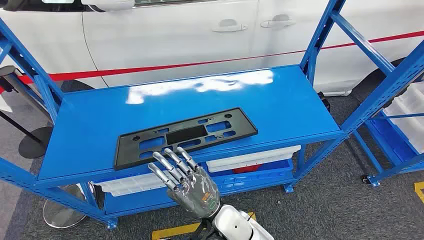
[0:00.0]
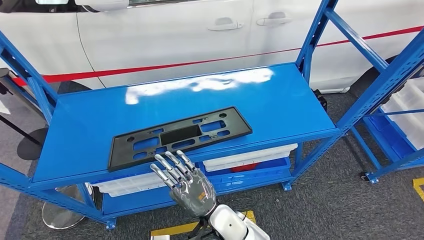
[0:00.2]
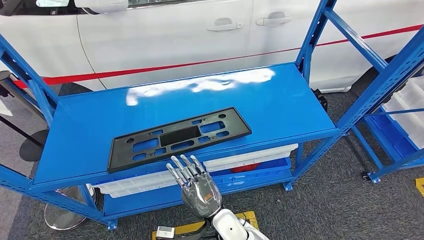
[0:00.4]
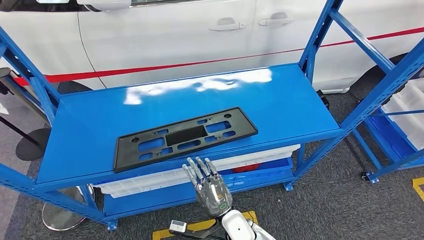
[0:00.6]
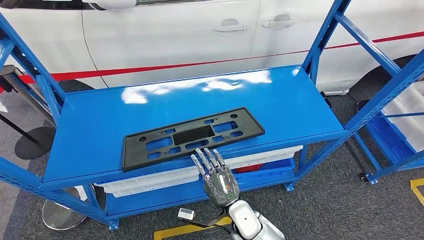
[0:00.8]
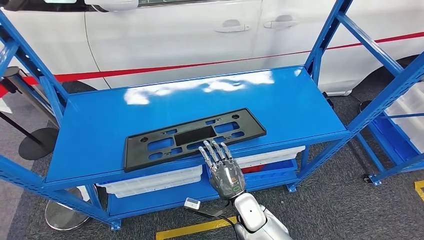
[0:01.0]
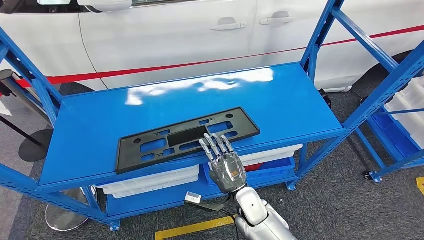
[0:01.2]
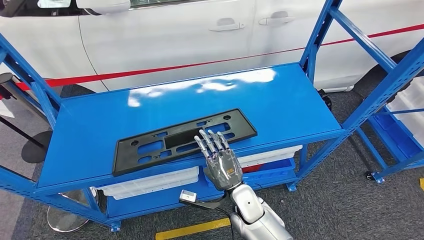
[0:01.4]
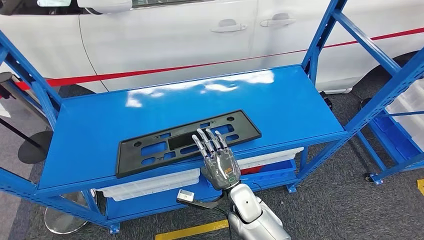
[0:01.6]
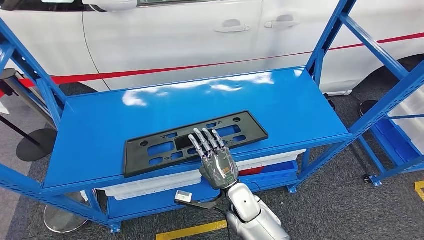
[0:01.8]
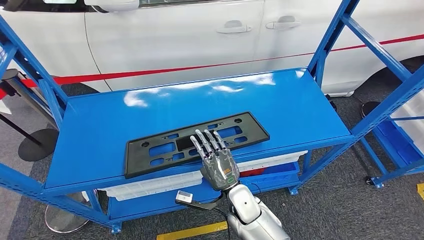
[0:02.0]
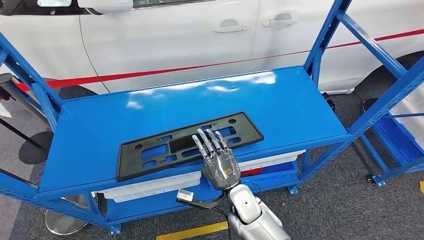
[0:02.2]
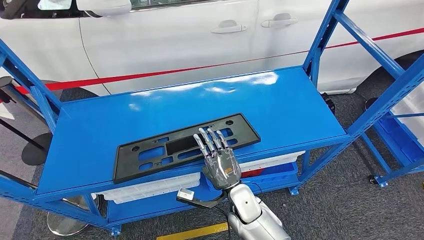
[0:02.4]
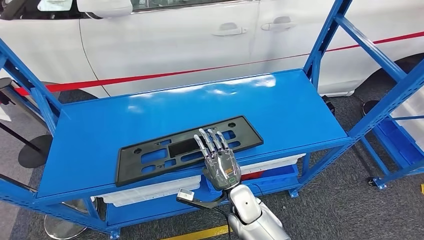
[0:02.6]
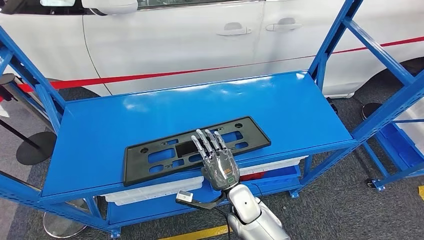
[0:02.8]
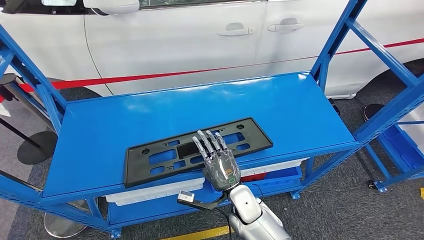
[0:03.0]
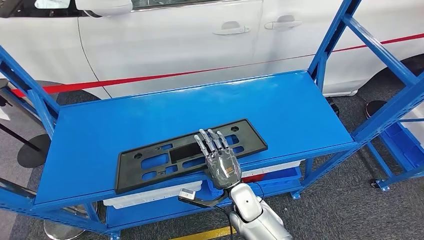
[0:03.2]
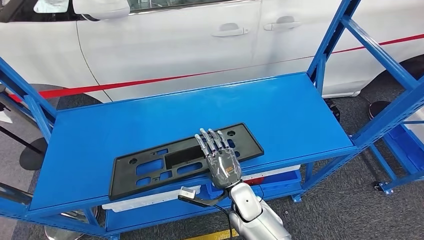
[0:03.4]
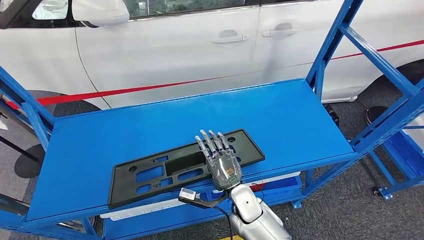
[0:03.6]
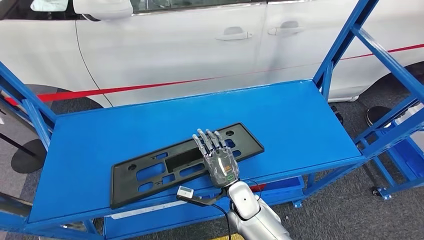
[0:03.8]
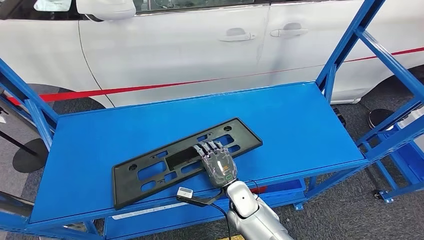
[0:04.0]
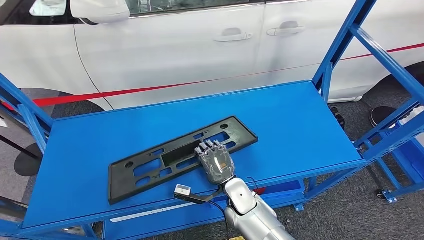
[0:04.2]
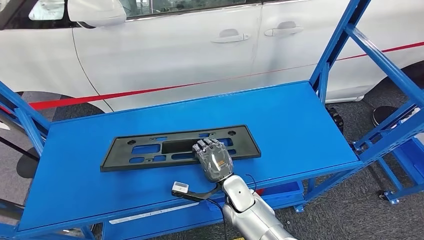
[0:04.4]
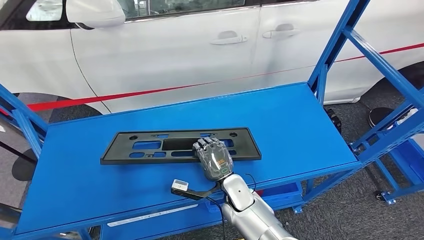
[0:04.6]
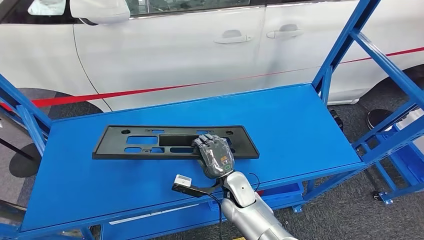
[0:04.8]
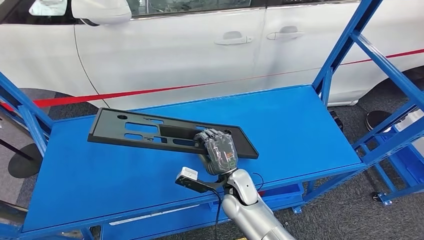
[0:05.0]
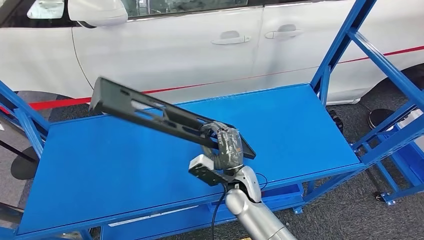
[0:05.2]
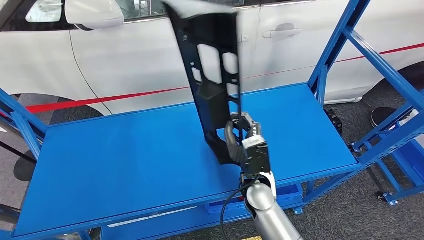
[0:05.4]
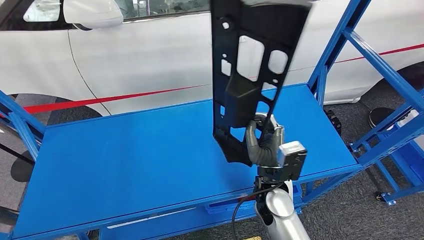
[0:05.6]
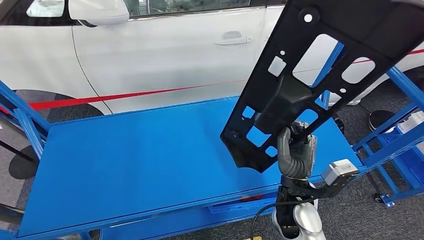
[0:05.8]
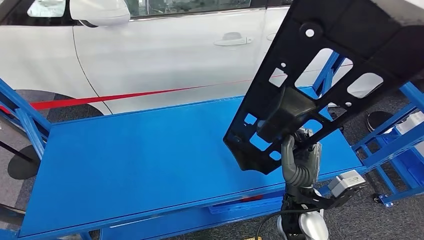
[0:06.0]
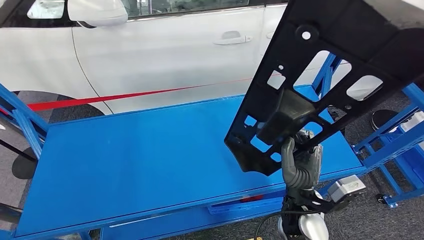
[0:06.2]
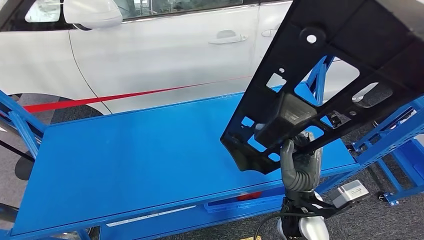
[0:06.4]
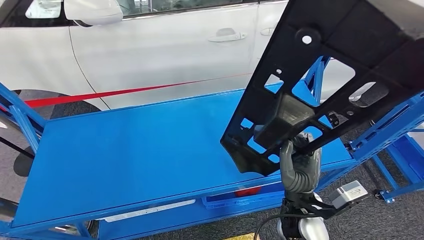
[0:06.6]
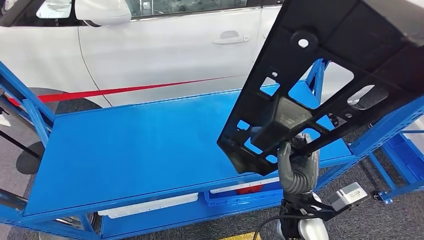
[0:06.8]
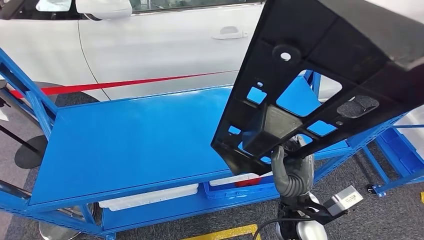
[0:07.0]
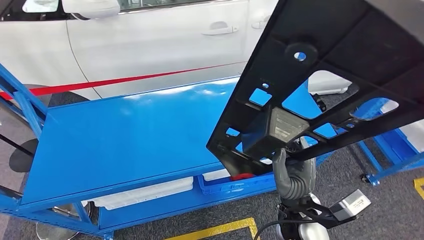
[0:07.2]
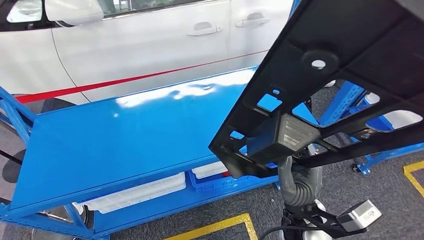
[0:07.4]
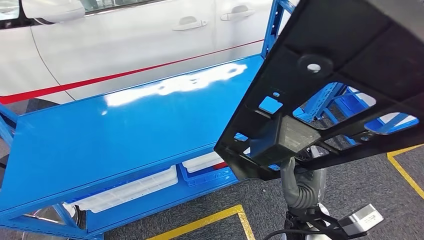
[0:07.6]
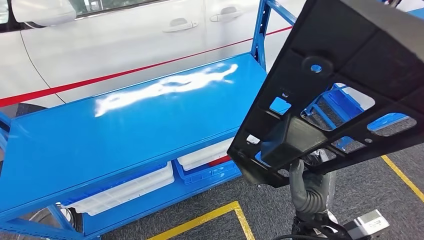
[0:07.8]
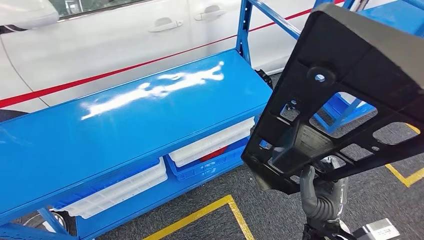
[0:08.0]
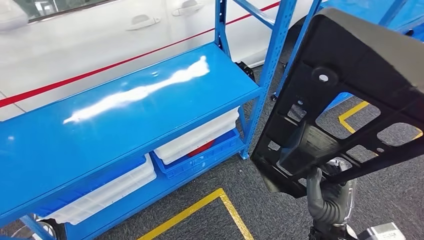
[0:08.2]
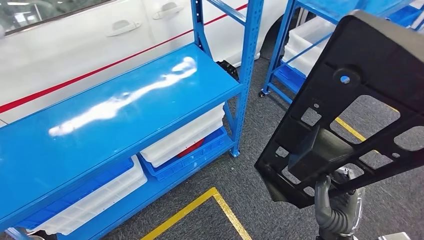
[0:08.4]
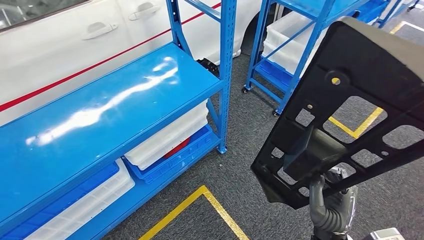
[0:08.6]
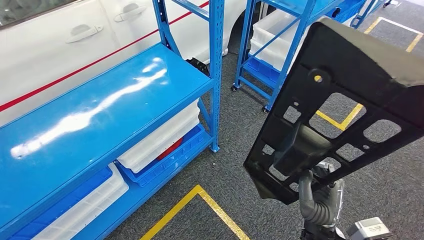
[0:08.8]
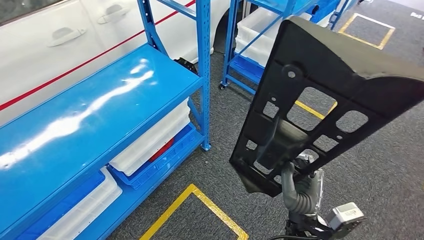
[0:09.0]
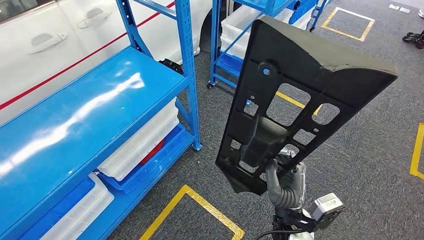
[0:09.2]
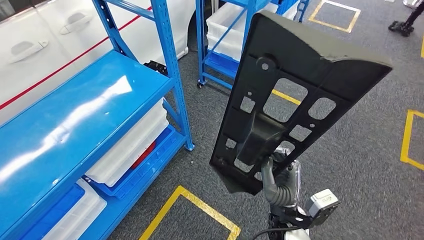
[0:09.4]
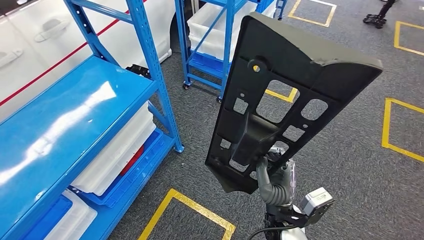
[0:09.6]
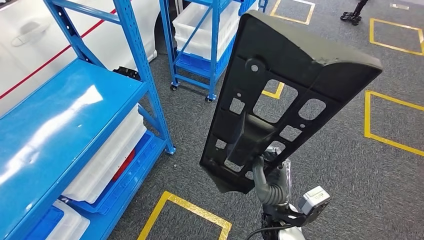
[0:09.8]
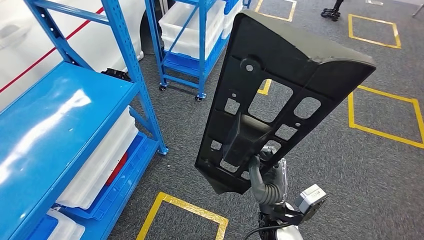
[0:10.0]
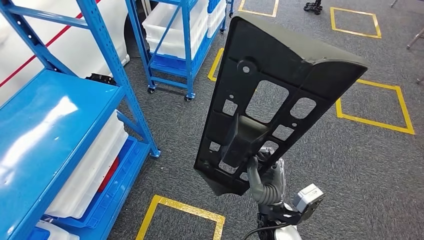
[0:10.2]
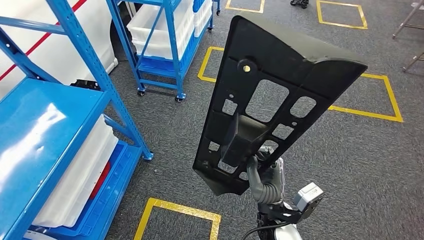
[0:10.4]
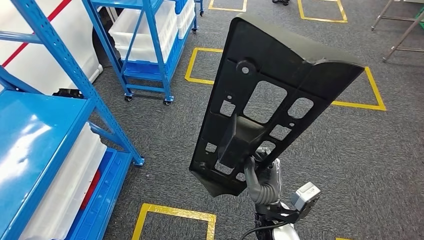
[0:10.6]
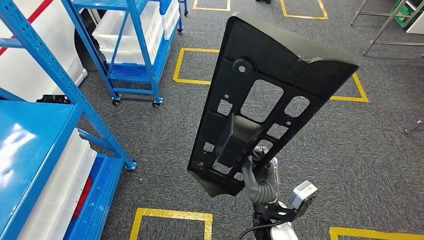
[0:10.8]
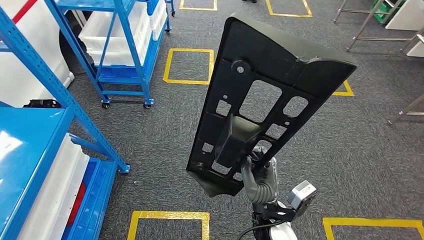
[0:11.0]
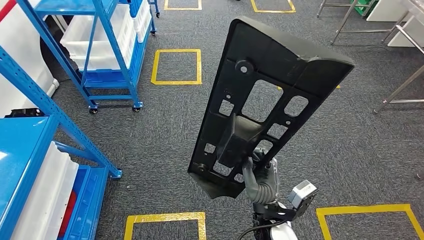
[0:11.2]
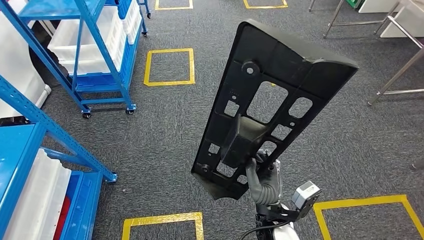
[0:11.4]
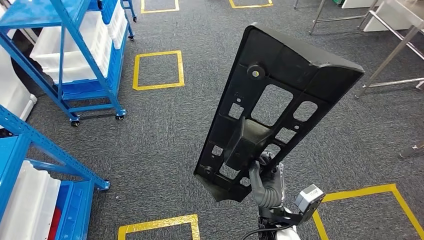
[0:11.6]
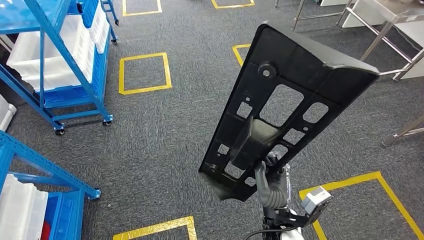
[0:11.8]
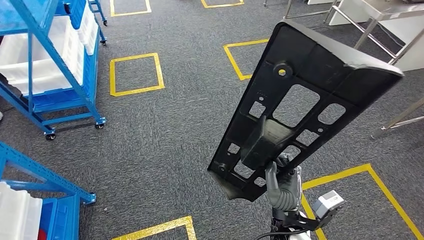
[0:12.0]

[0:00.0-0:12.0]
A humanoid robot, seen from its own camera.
Step, 0:00.0 to 0:06.8: Pick up the large material from the shelf.

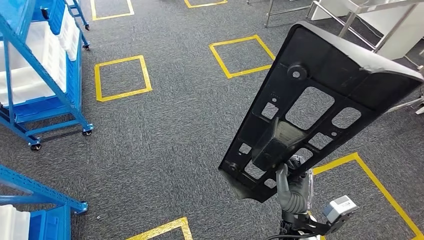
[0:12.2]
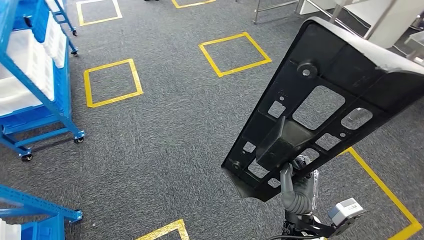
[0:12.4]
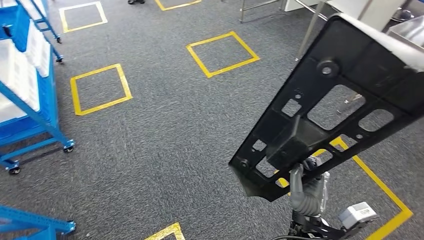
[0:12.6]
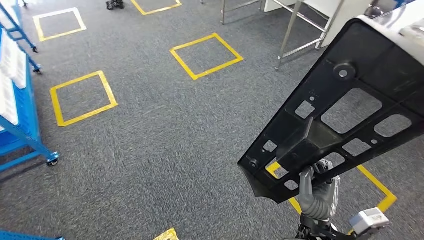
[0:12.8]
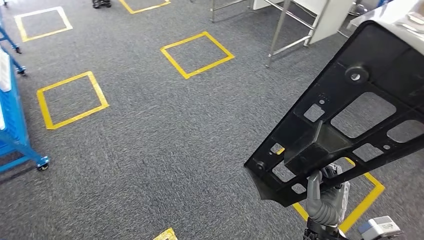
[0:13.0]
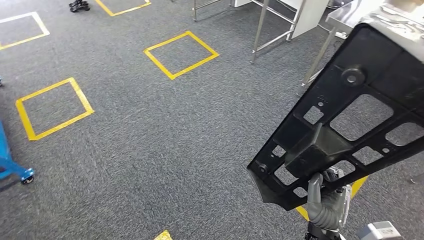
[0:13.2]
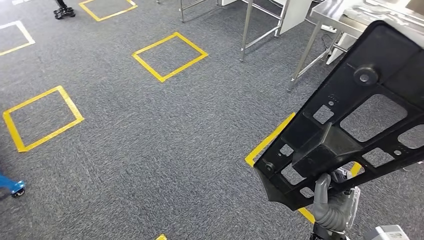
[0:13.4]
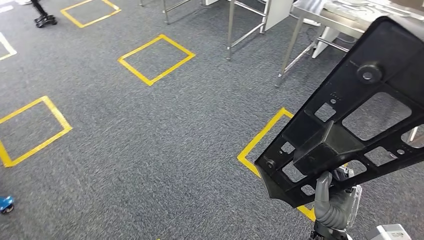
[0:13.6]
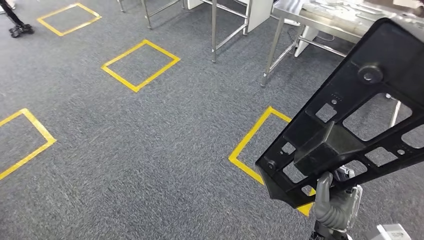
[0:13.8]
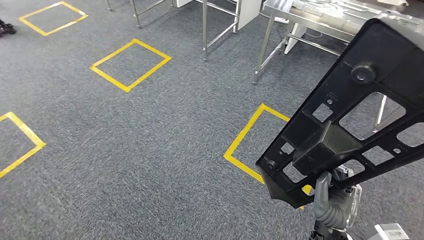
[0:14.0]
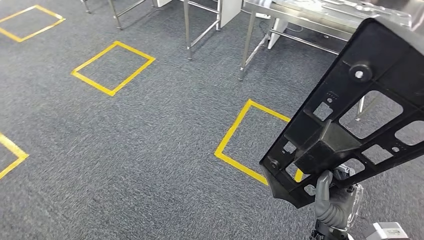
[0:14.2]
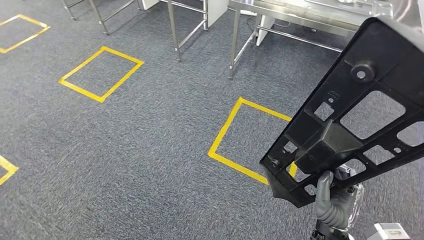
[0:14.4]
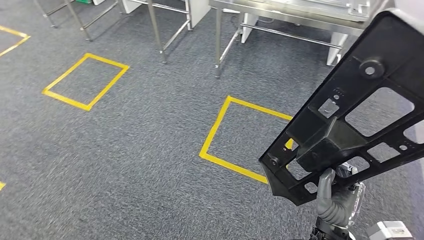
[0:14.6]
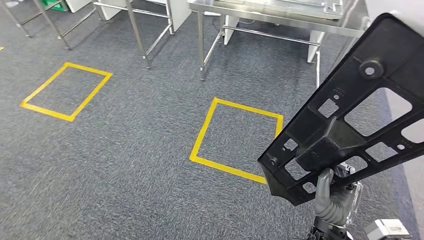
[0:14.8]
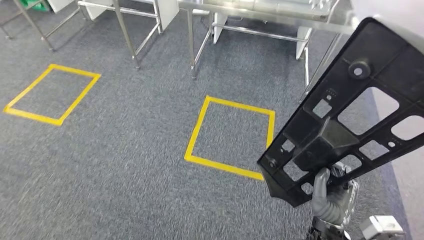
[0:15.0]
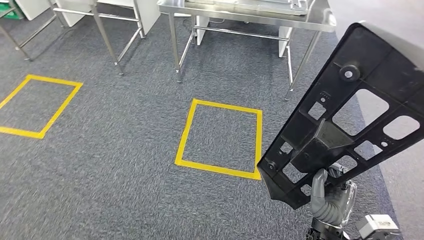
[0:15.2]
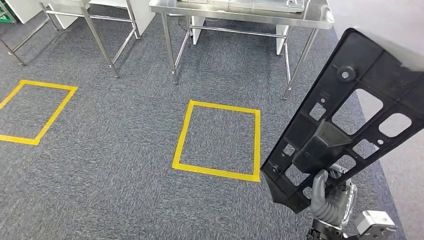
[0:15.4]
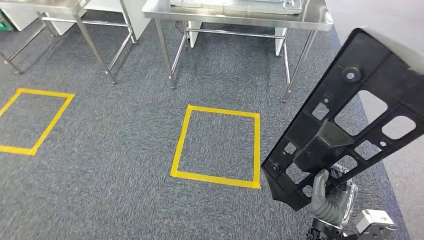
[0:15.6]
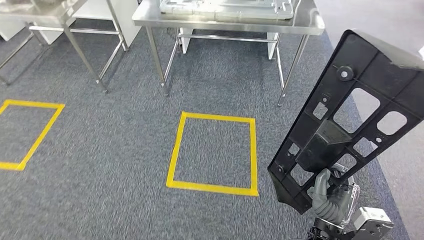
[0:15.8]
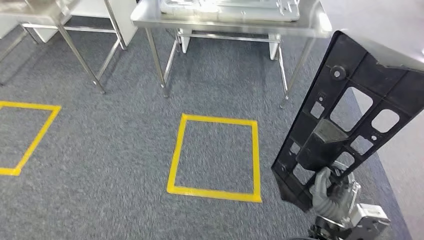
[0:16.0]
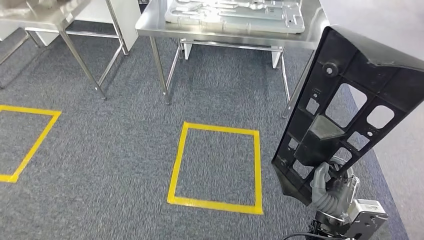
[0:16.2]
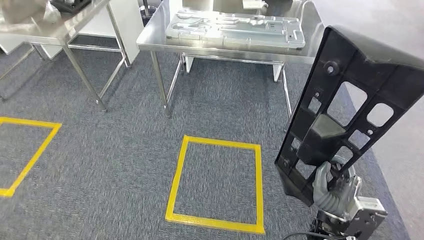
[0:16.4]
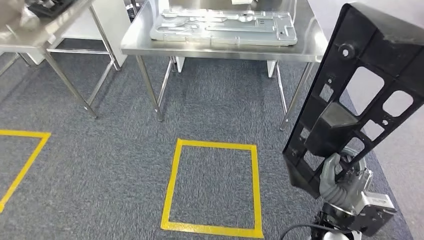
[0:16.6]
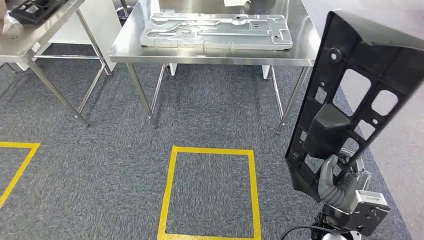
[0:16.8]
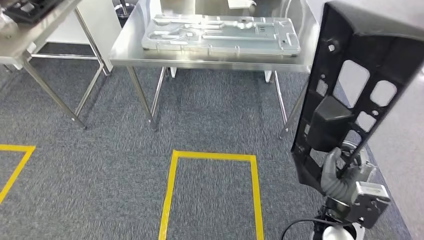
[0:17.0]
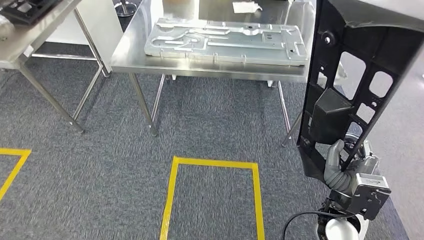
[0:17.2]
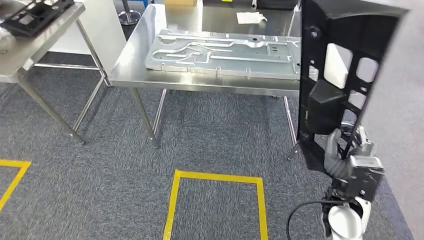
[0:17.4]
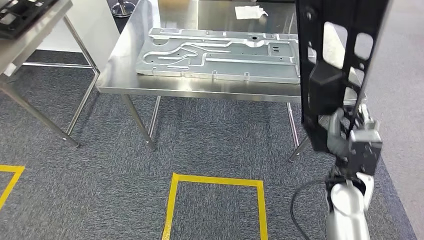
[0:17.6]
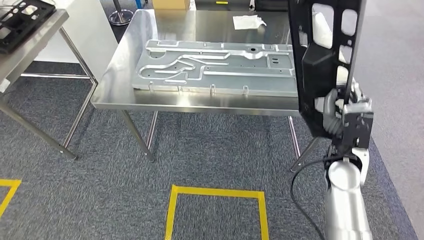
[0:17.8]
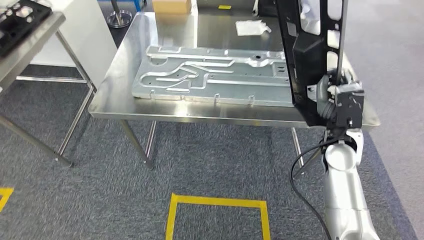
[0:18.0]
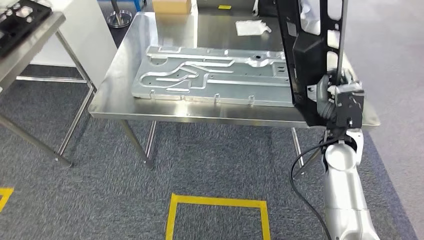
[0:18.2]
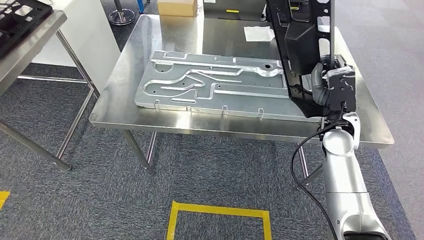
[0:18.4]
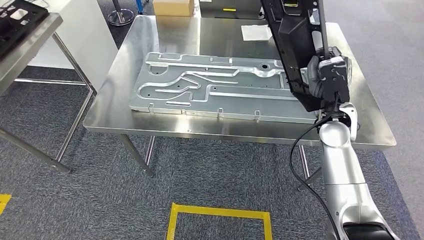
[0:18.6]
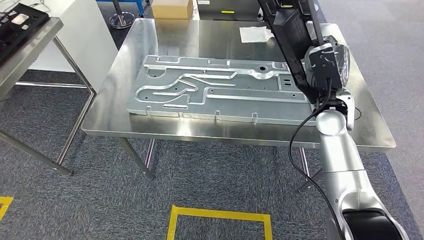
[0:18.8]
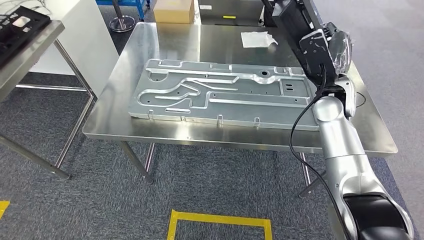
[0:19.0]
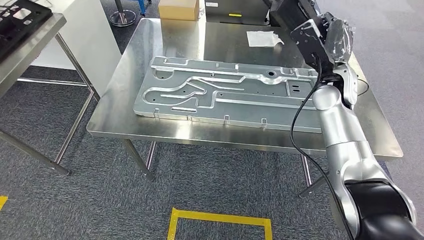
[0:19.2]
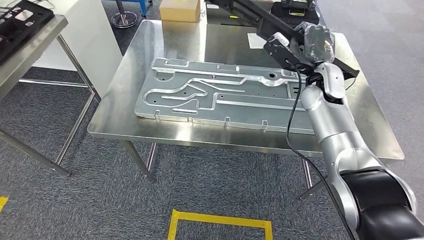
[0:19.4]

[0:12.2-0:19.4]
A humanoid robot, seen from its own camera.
Step, 0:12.2 to 0:18.8: Move the large material to the front of the workbench.
